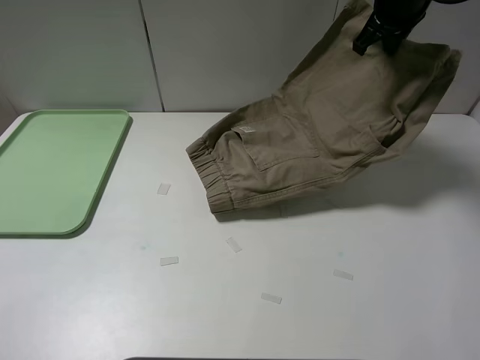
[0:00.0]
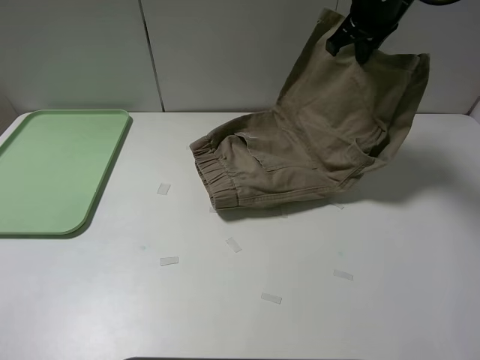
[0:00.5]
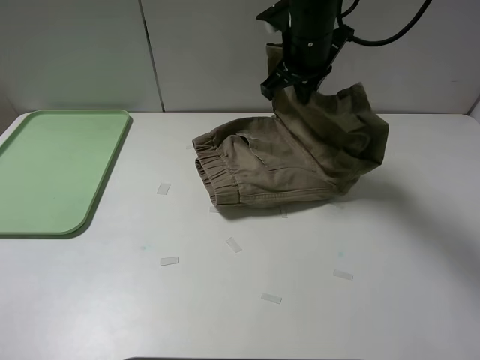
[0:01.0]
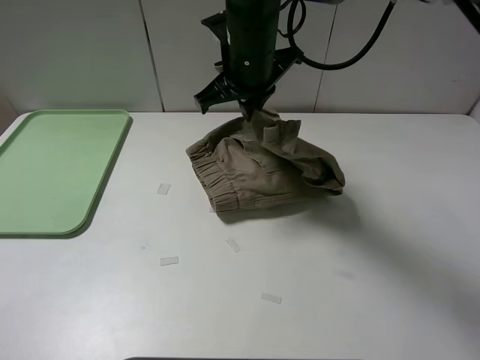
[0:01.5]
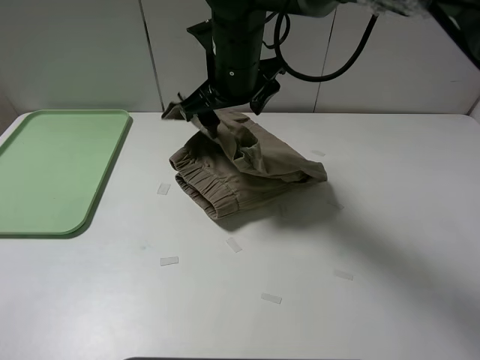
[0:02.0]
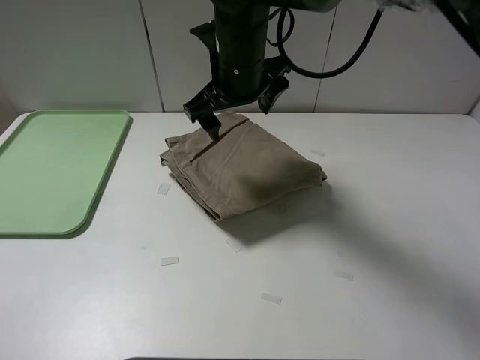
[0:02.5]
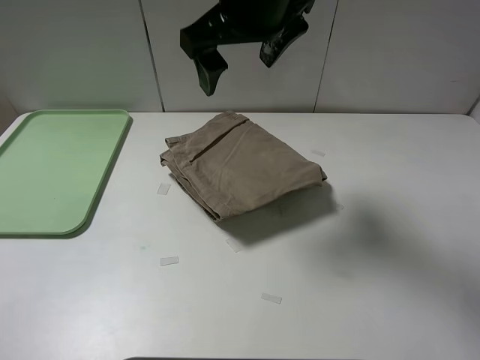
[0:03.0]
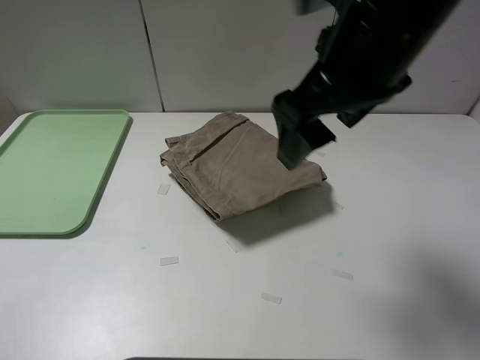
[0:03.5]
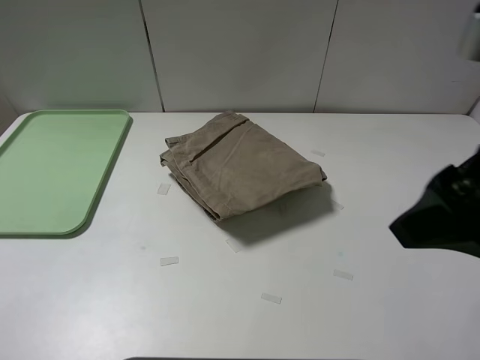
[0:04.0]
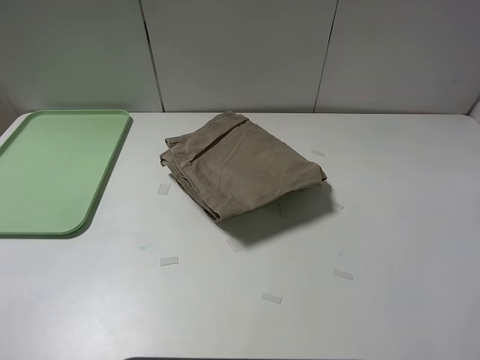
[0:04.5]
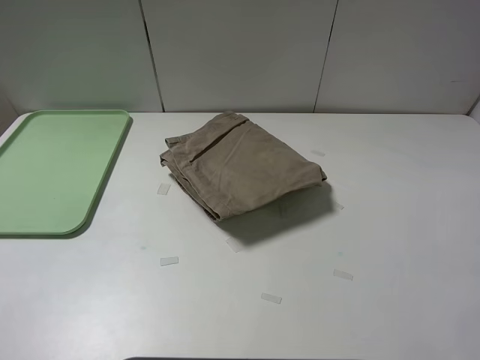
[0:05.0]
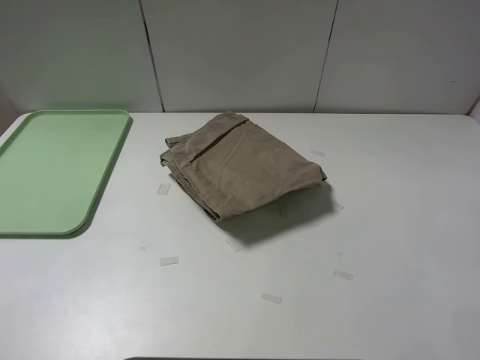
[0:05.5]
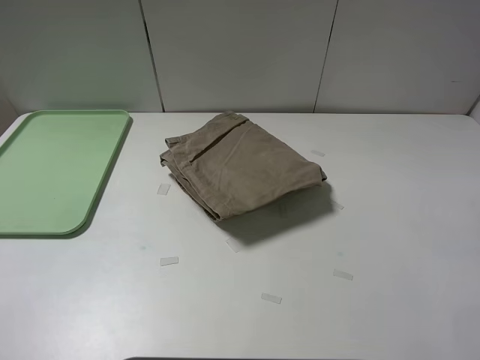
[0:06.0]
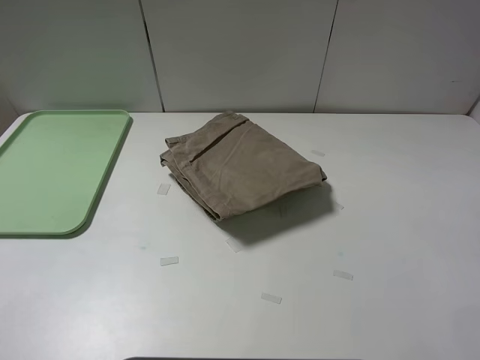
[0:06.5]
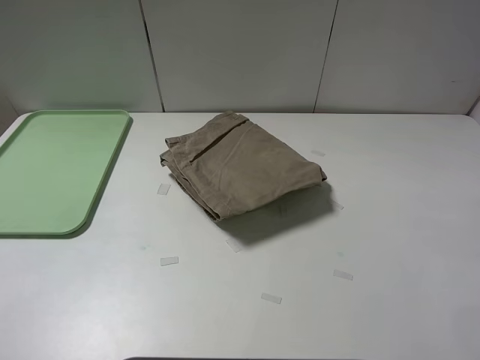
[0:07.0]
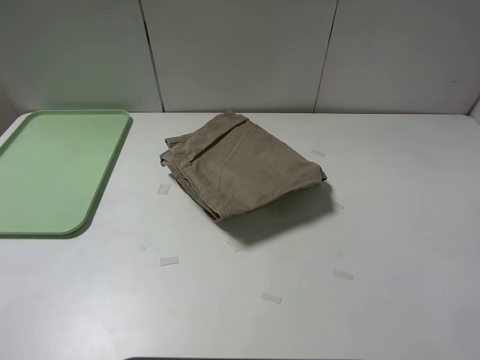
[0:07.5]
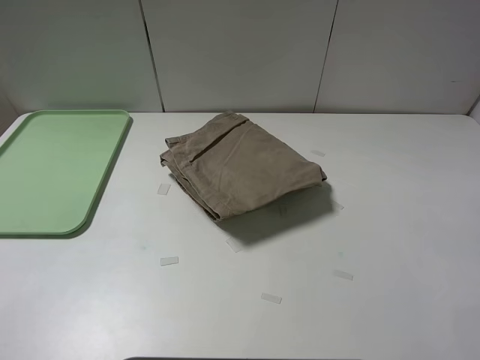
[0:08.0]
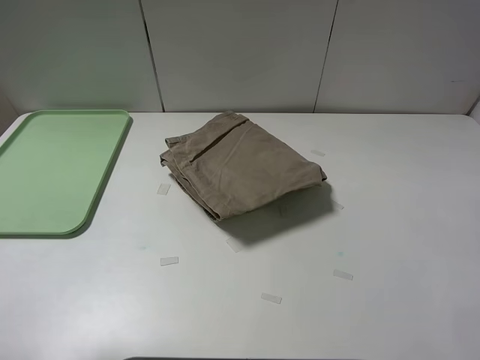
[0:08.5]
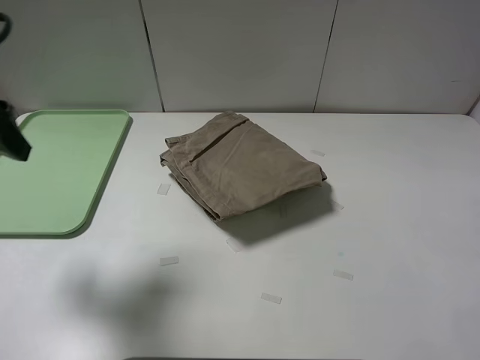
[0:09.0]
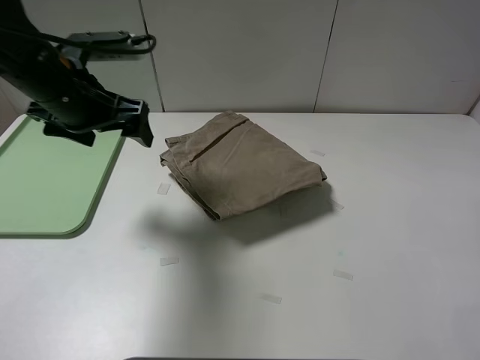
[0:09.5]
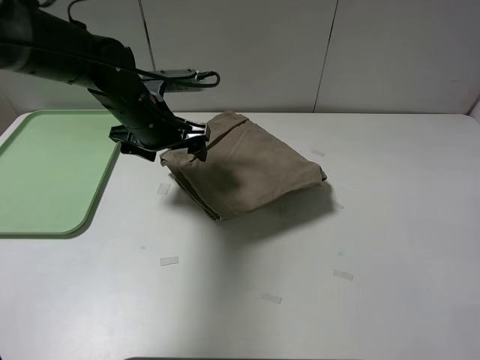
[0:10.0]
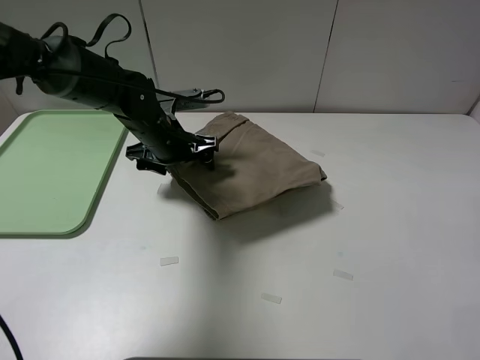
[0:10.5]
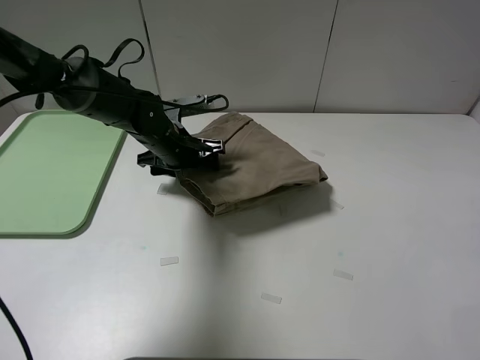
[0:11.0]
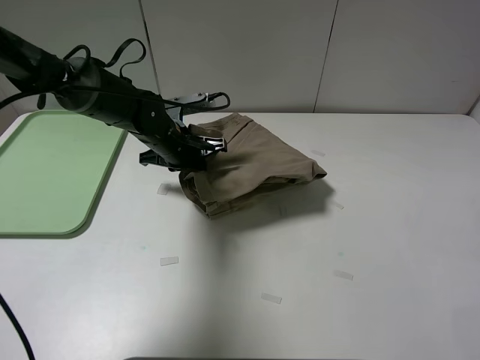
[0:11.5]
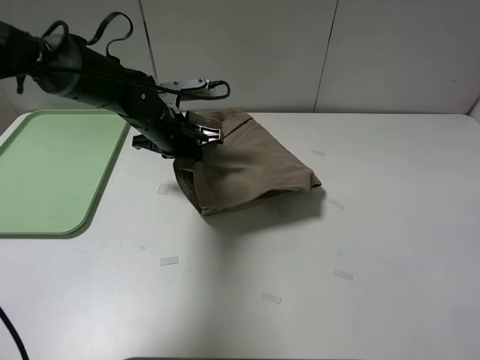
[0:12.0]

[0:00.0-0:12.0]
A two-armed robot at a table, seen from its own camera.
Task of the whole recording: fold the khaki jeans in half with two grippers, then fold them in half again, and use the left claw to place the folded fold khaki jeans on the tray.
Step, 0:00.0 to 0:02.0: Fold the khaki trousers from right to left with the right gripper.
Step, 0:02.5 to 0:11.0: Grasp the khaki trousers with the left gripper.
0:00.0 to 0:02.0: The right gripper shifts about 25 cm to the left and backward, and opens its fingers.
0:02.0 to 0:04.0: The right gripper moves backward, to the right and upward, about 30 cm, and opens up.
0:04.0 to 0:06.0: The right gripper is displaced backward and to the right by some 20 cm.
0:06.0 to 0:08.0: The two grippers keep their place.
0:08.0 to 0:10.0: The left gripper shifts approximately 40 cm forward and to the right.
0:10.0 to 0:12.0: The left gripper moves downward, roughly 5 cm, and closes up.

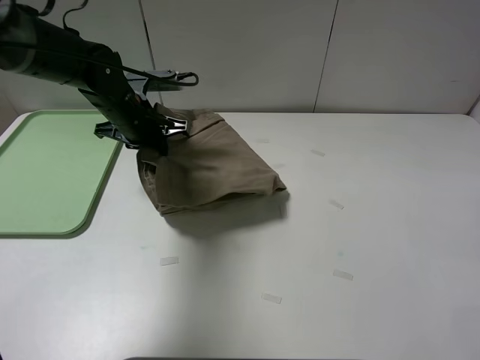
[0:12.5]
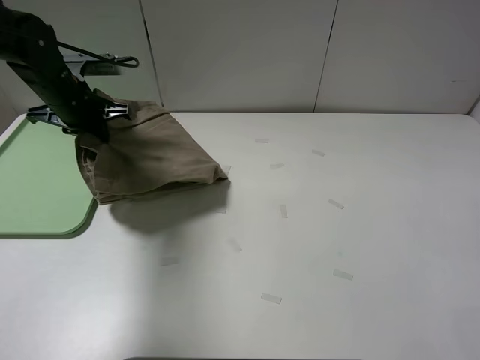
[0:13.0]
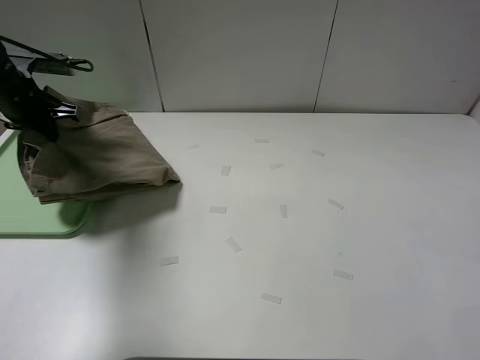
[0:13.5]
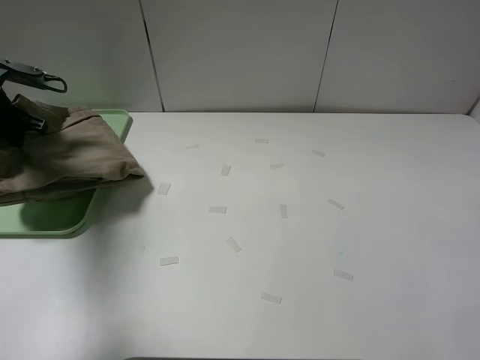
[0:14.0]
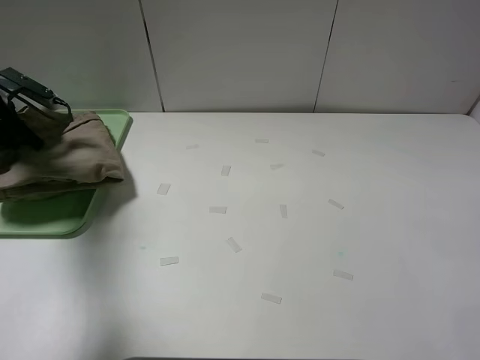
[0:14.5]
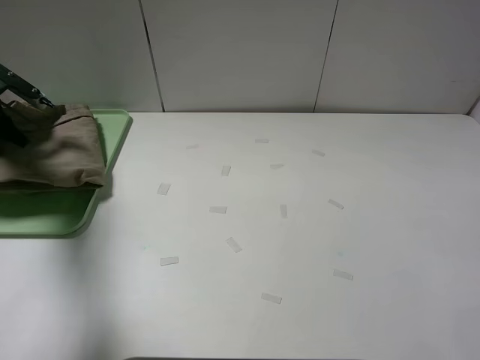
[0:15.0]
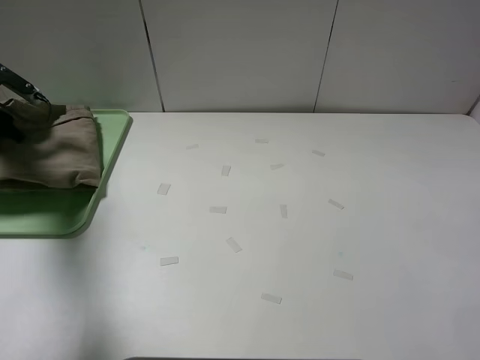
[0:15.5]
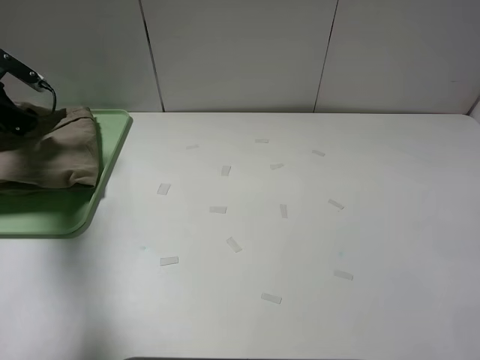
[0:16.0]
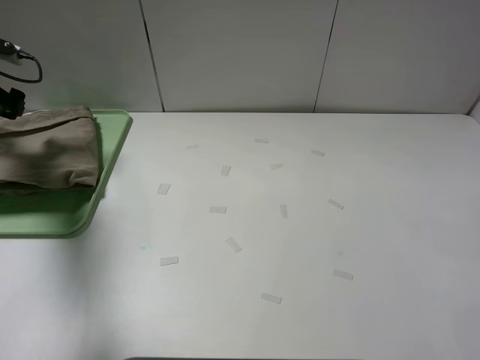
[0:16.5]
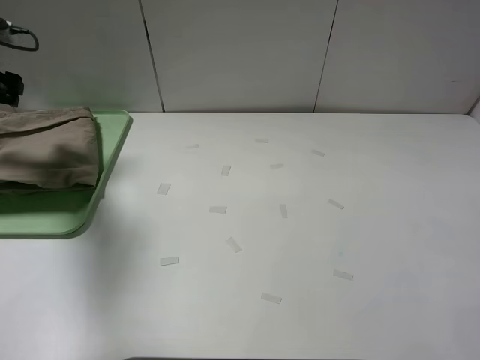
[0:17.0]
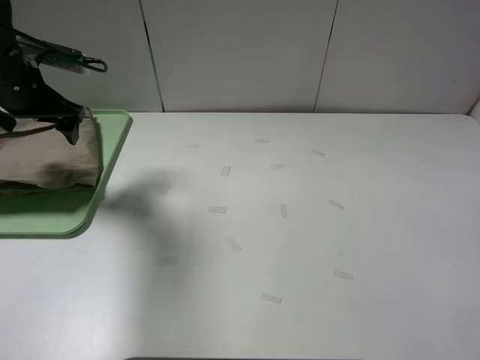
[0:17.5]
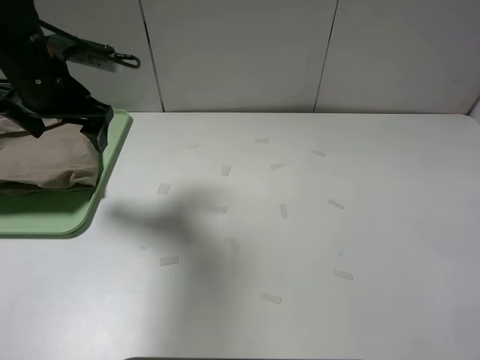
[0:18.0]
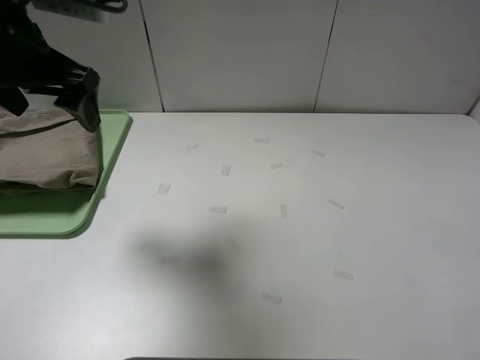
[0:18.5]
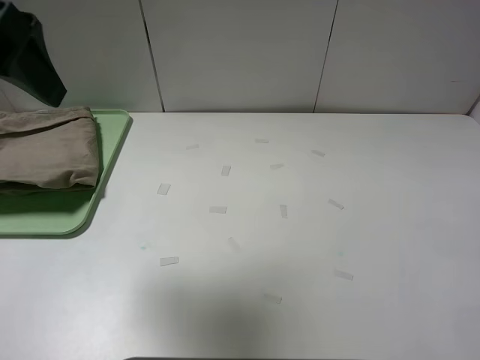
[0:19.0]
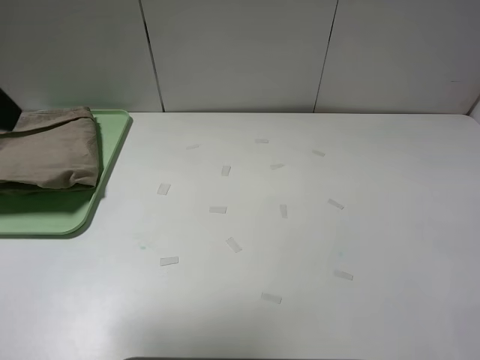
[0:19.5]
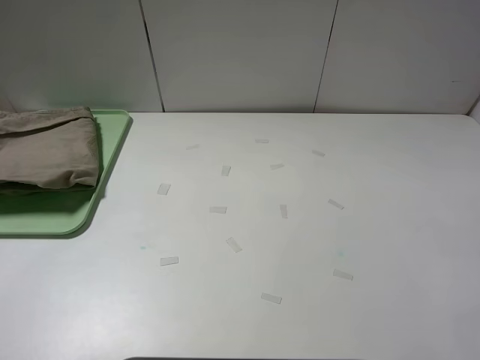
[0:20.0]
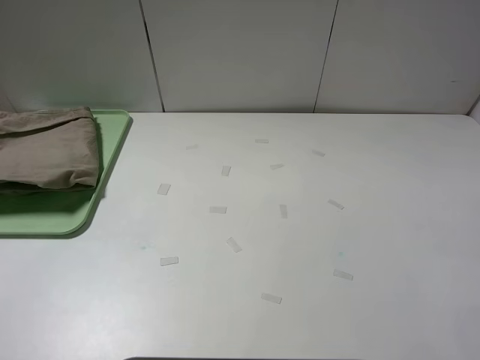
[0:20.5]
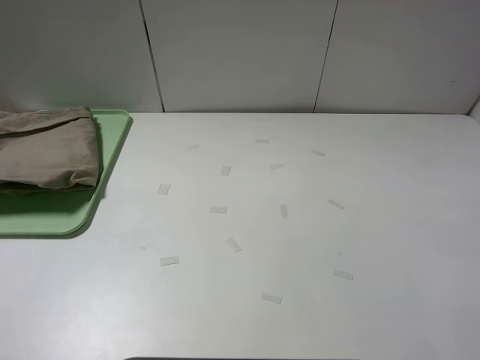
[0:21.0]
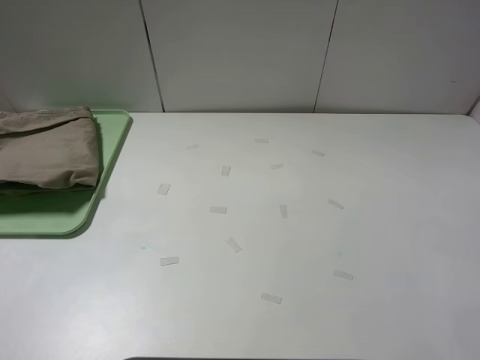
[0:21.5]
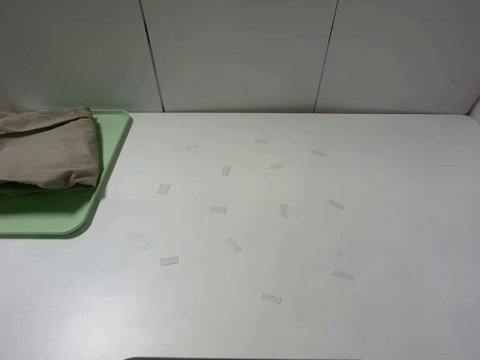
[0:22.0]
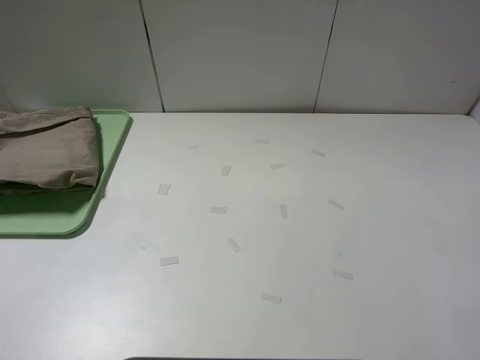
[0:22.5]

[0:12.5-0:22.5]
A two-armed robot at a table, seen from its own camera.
Task of the whole recording: fold the khaki jeans in half with two grippers, then fold them in half again, and use the left claw to place the folded fold khaki jeans on the tray.
Step, 0:12.5 to 0:16.0: Place the folded khaki trousers on the green tray with the left gripper.
0:12.5 to 0:14.5: The left gripper shifts approximately 25 cm to the left.
0:14.5 to 0:16.5: The left gripper opens.
0:16.5 to 0:18.5: The left gripper is displaced to the right, backward and upward by some 25 cm.
0:18.5 to 0:20.5: The left gripper travels backward by some 25 cm.
